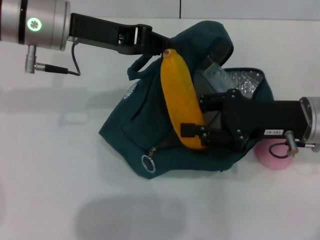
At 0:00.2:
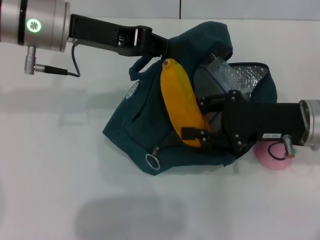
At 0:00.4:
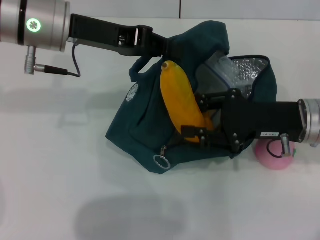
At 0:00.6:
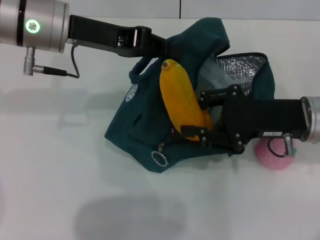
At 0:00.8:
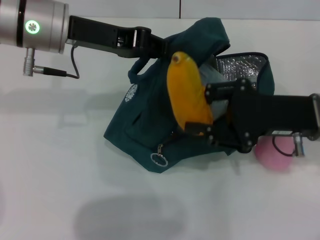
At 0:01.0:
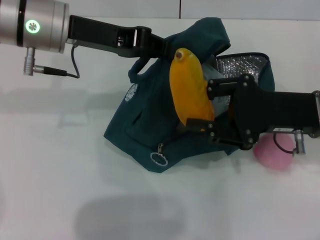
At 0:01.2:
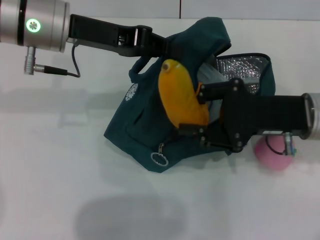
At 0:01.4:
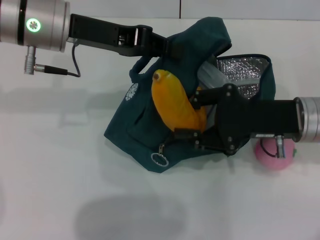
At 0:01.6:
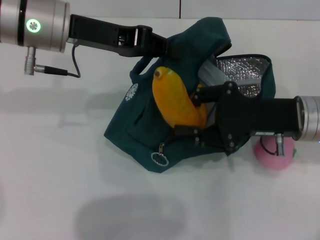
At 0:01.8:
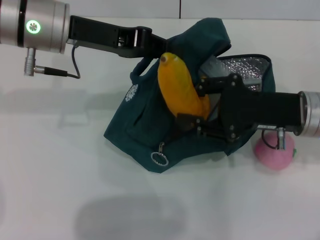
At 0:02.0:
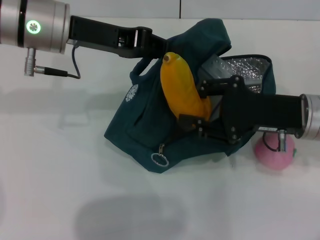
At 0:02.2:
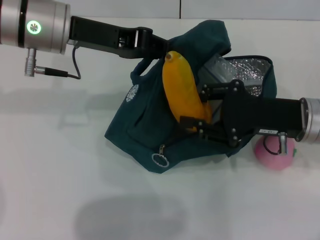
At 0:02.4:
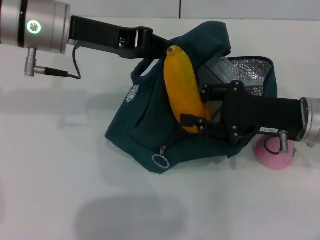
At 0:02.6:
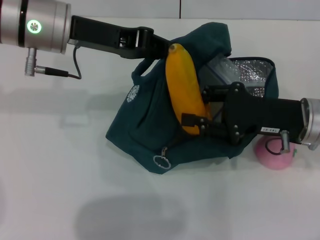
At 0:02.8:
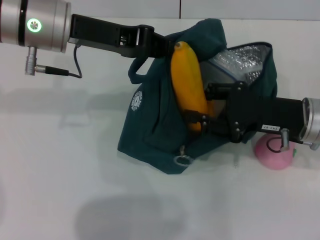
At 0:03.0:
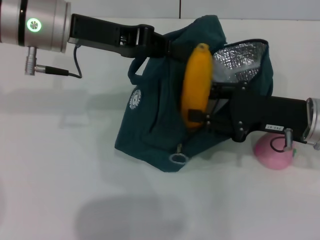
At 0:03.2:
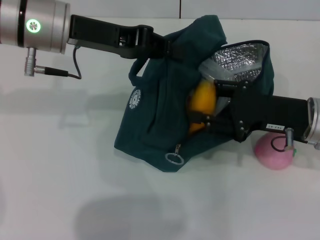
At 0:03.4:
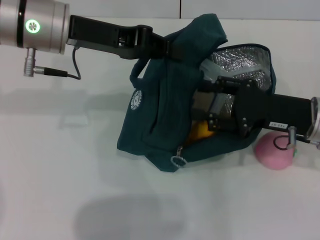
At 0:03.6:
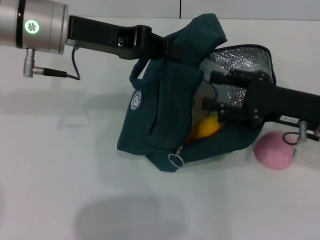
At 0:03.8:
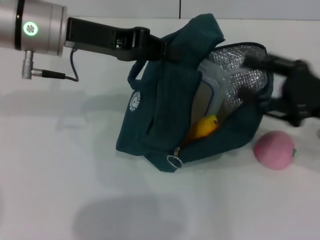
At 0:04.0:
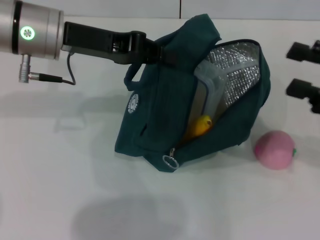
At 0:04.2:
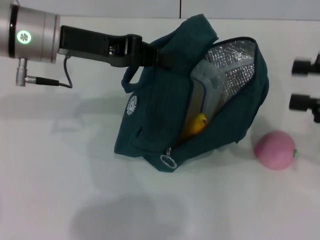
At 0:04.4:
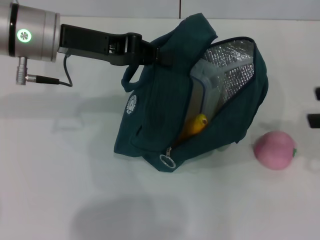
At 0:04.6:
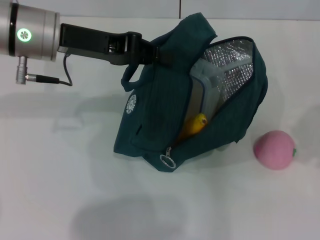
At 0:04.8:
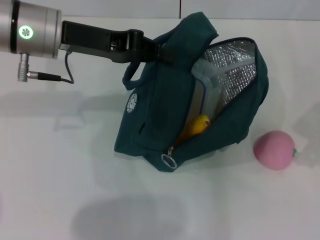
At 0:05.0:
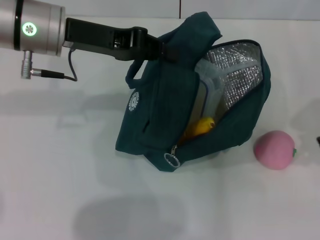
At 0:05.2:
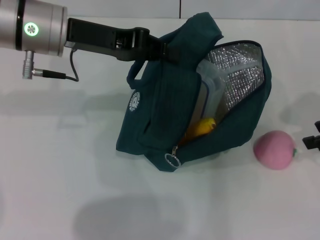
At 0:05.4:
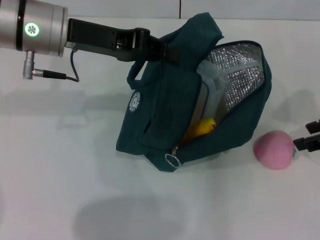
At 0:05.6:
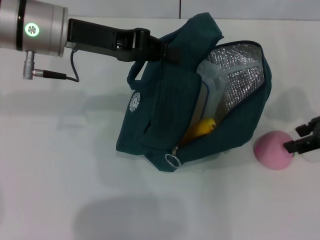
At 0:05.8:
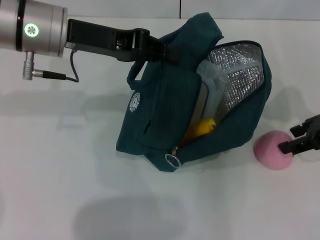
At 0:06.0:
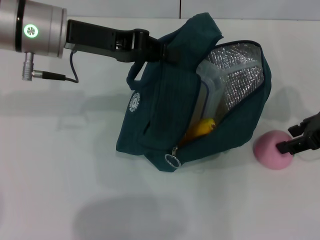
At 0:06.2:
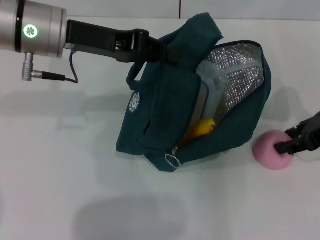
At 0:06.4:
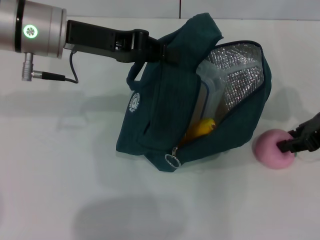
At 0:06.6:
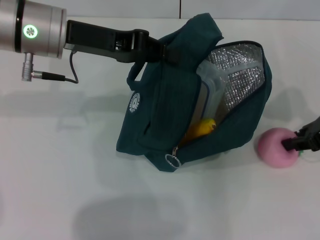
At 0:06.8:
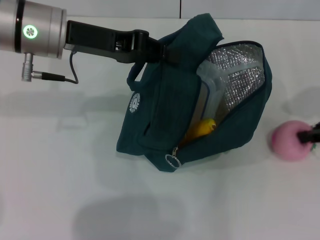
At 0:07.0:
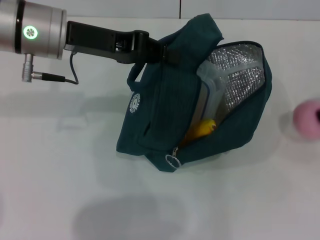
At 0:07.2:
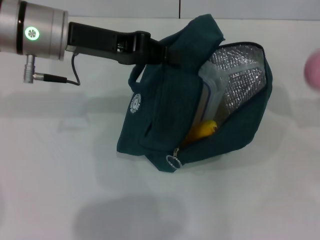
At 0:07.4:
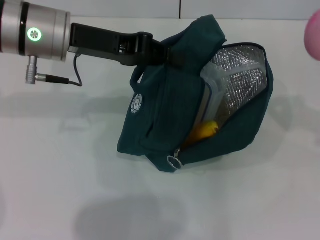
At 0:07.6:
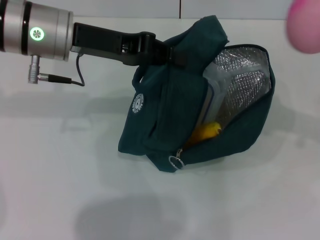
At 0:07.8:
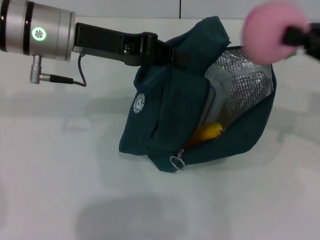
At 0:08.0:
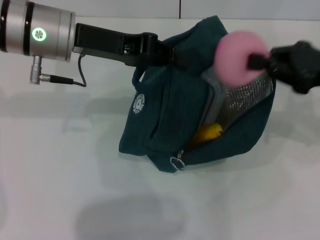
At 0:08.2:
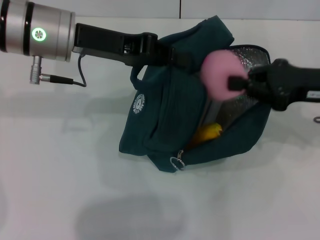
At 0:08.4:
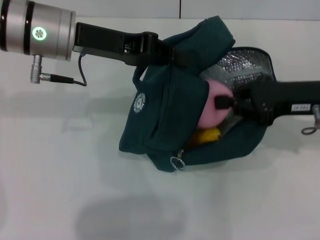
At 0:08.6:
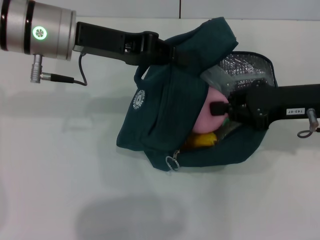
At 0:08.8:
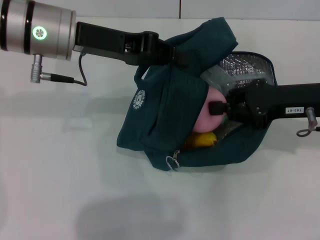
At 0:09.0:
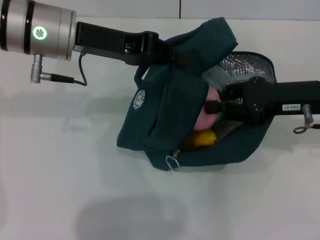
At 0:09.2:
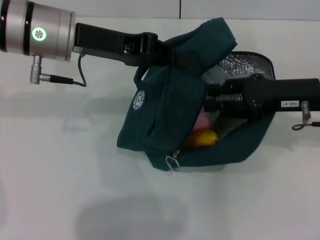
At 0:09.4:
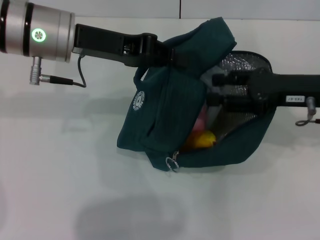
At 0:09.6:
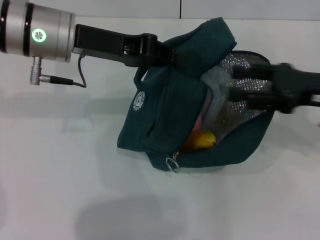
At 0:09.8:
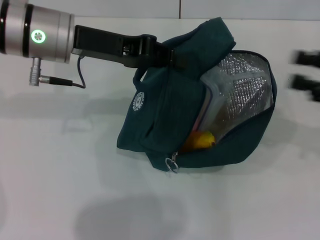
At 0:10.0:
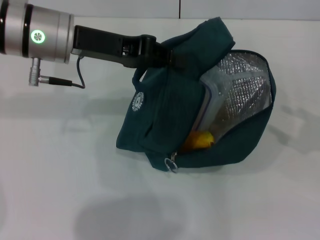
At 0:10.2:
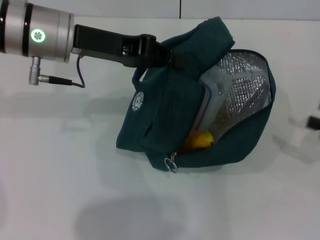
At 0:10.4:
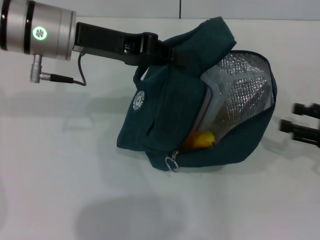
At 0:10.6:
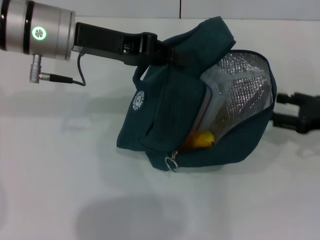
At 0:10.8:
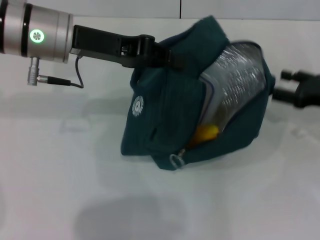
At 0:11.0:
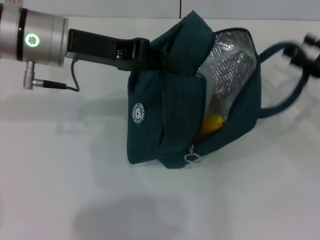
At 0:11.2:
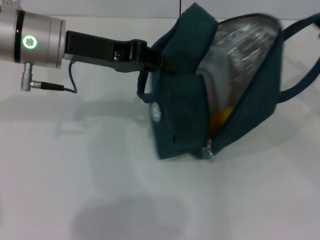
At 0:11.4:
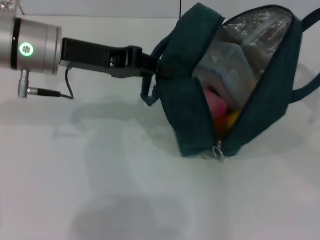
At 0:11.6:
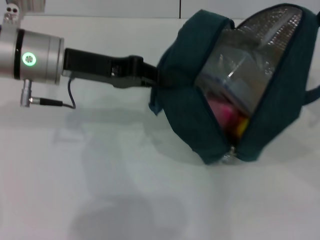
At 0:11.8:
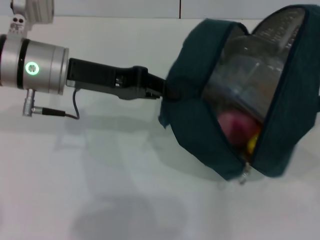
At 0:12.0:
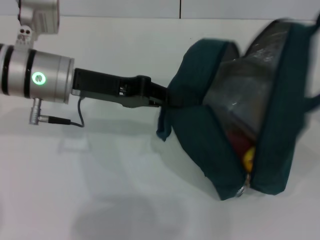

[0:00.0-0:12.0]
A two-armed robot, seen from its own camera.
Step, 0:00.0 to 0:03.6: Put the banana into the lunch bag with your right hand.
Step, 0:03.8 to 0:06.4: Grab the peach with your right hand.
0:01.6 to 0:03.0: The grippers stay close to where they were, moving slightly.
0:03.0 to 0:04.4: The right gripper heads upward, to the right and backward, covering some 20 cm.
0:04.4 to 0:06.0: The right gripper heads forward and downward, covering approximately 10 cm.
0:06.0 to 0:07.6: The right gripper moves to the right, about 5 cm, and closes its fingers.
0:07.6 to 0:09.0: The right gripper shifts roughly 15 cm to the left and downward.
0:09.0 to 0:10.4: The right gripper travels to the right, backward and downward by about 15 cm, and opens up.
0:10.4 to 0:12.0: The left gripper changes place by roughly 5 cm; the right gripper is displaced upward by about 10 cm.

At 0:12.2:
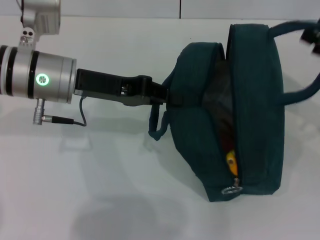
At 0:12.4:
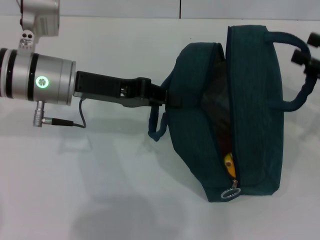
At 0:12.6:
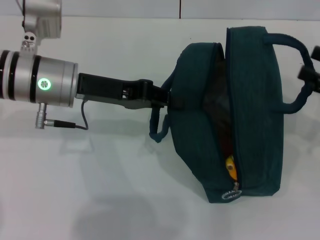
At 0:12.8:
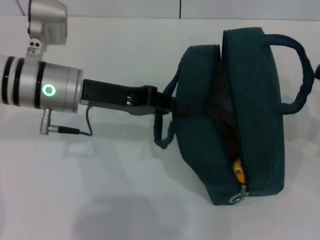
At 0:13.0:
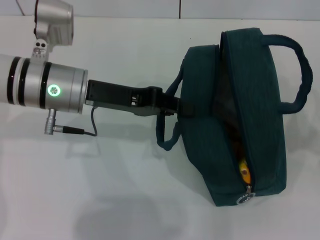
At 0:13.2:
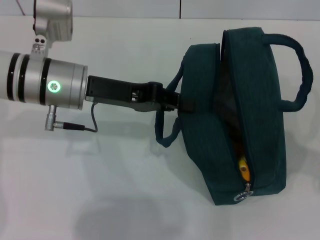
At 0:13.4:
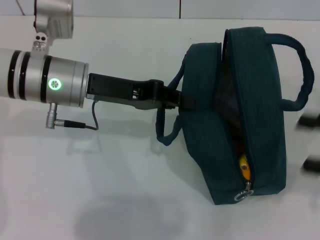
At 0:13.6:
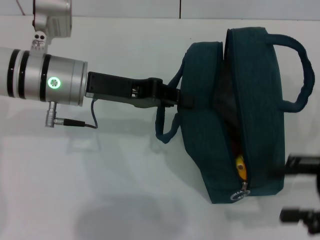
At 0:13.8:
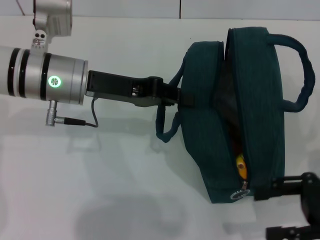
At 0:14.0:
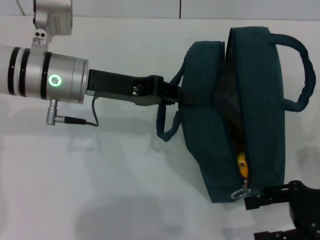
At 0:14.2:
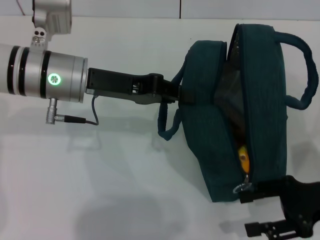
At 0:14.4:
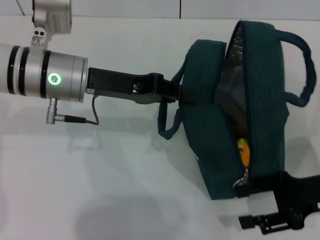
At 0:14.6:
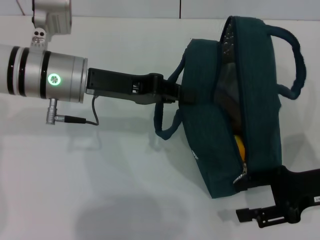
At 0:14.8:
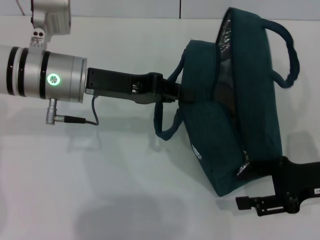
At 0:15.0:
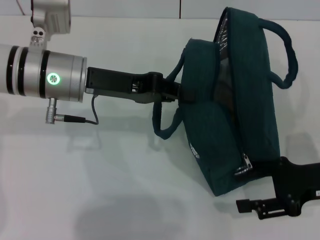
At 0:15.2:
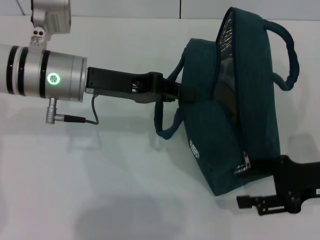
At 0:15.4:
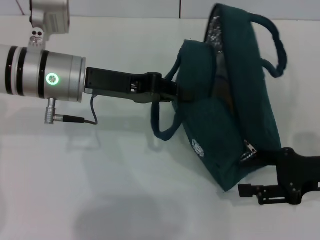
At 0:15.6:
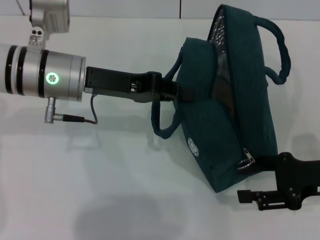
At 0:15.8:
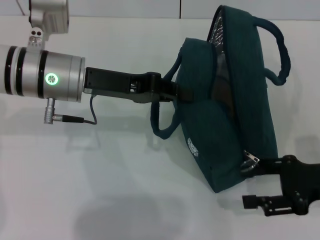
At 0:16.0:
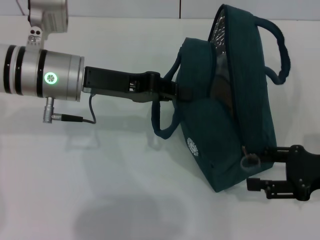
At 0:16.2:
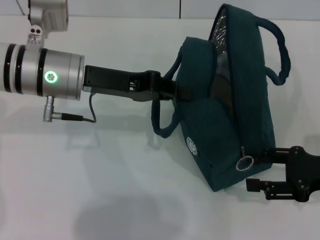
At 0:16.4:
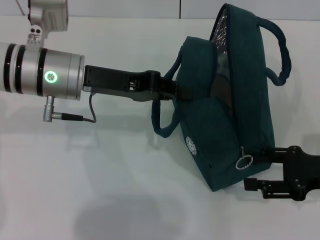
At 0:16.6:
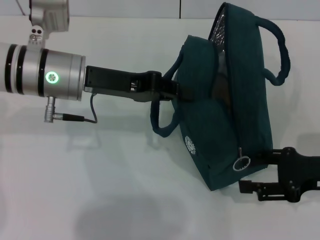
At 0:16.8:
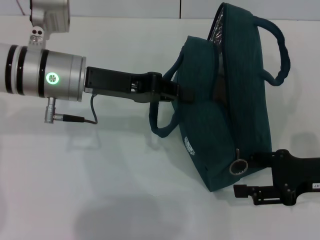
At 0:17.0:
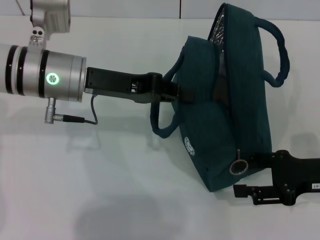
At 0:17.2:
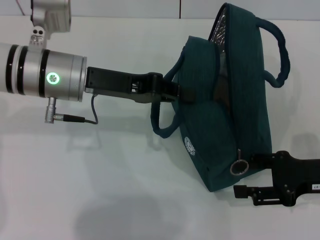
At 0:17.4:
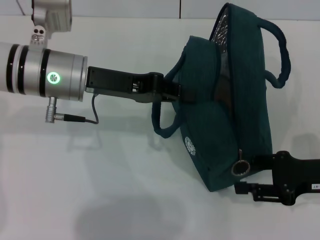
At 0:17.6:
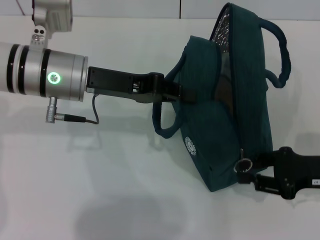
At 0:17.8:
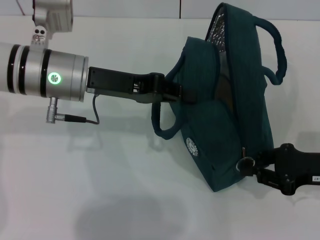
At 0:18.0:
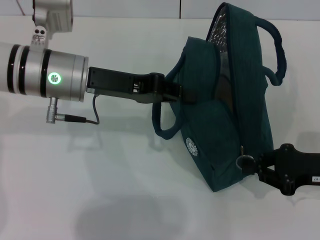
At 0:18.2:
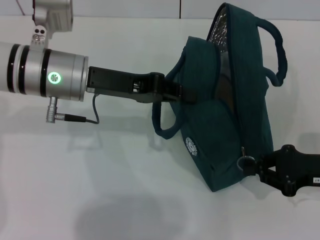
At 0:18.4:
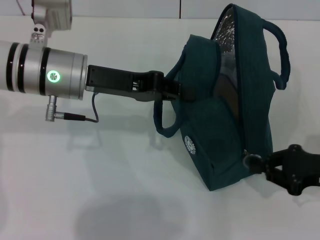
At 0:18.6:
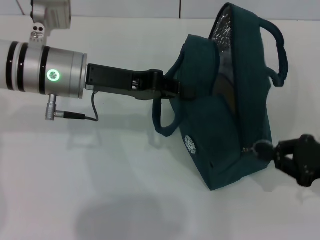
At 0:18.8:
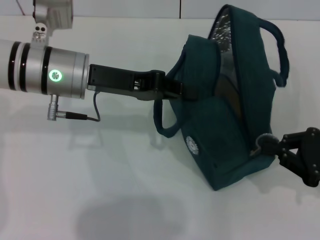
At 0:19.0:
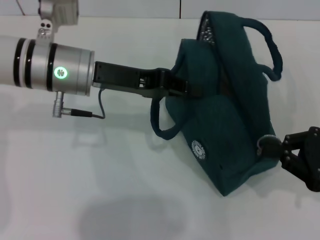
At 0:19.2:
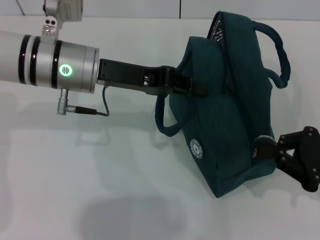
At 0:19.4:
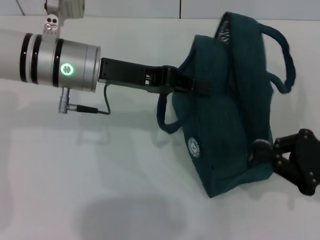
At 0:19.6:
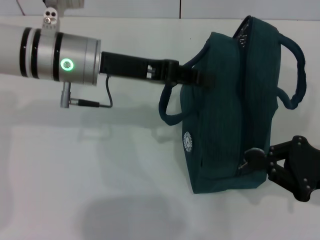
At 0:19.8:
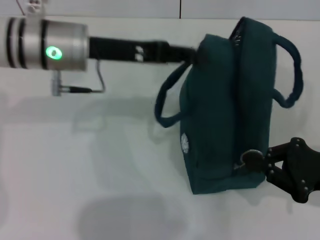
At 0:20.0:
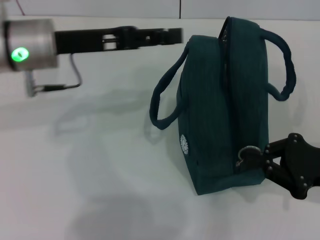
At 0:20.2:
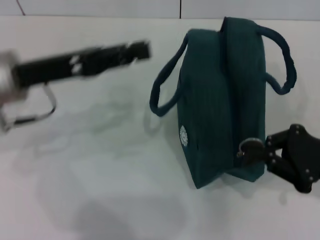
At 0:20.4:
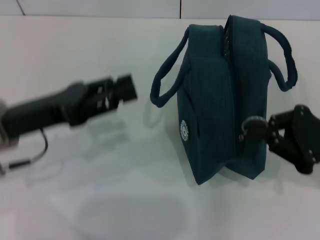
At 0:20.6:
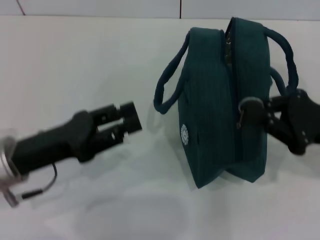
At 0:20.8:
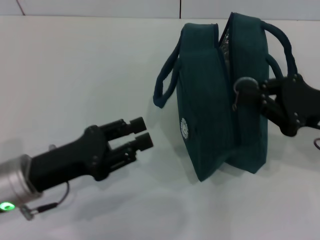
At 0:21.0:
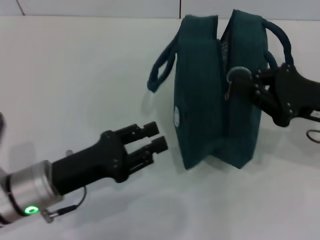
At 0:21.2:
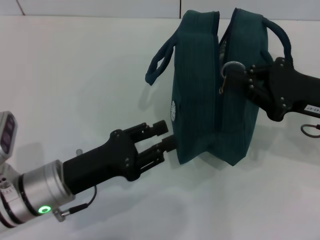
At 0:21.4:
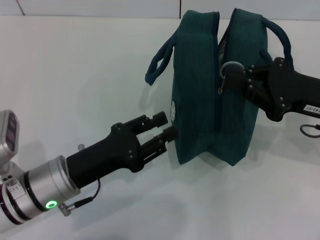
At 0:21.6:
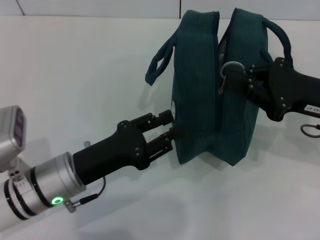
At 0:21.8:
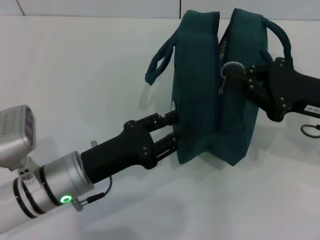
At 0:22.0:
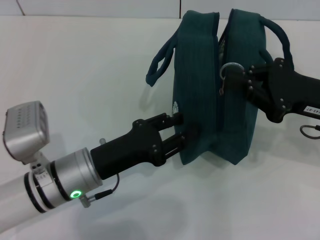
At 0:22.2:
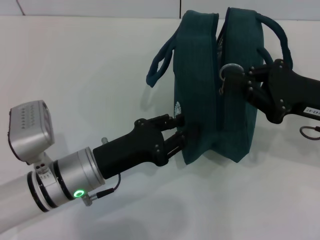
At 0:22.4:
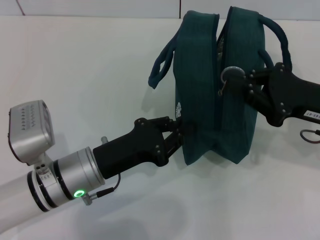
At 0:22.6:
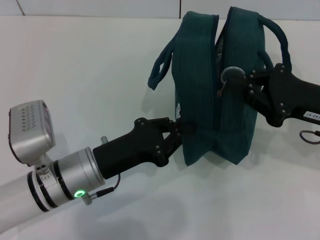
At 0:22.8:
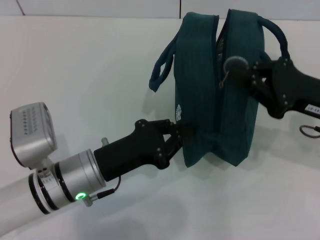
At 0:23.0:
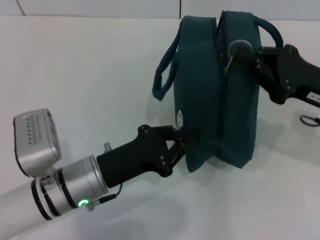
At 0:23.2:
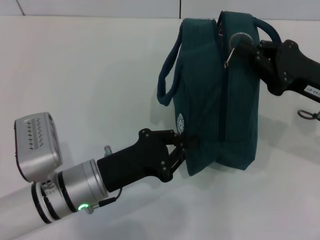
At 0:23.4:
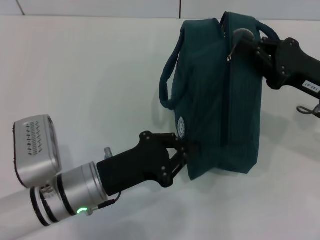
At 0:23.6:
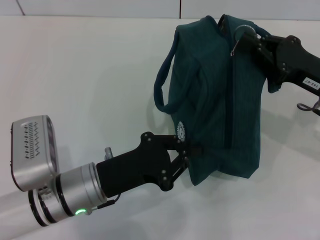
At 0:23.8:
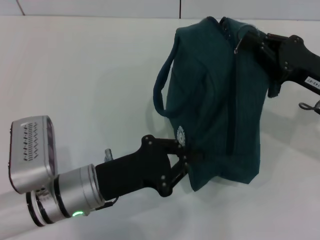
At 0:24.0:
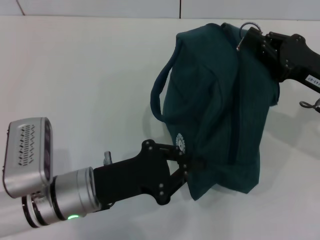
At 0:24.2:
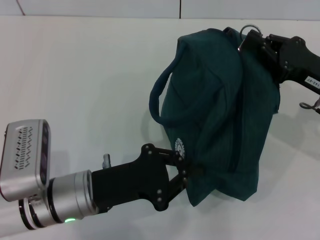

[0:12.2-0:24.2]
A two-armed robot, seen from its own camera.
Step, 0:12.6 to 0:20.4: Hold the lunch bag with your left hand.
0:12.2 to 0:13.8: The right gripper is displaced backward by roughly 10 cm.
0:13.8 to 0:16.6: The grippers make only small movements.
0:16.6 to 0:18.2: The right gripper closes its fingers.
0:19.8 to 0:21.2: The right gripper is displaced forward by about 5 cm, while the left gripper heads backward and downward, covering about 20 cm.
0:21.2 to 0:22.6: There are only small adjustments of the grippers.
